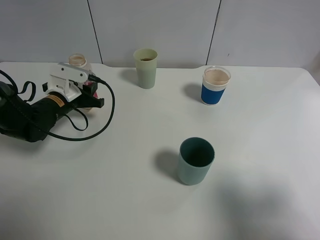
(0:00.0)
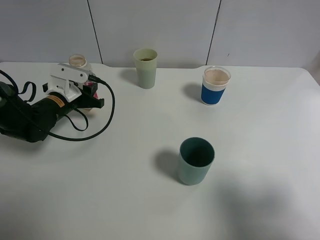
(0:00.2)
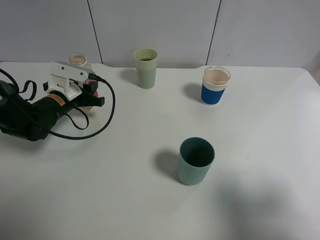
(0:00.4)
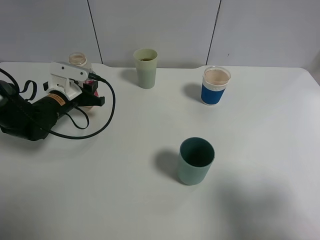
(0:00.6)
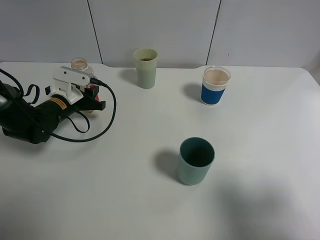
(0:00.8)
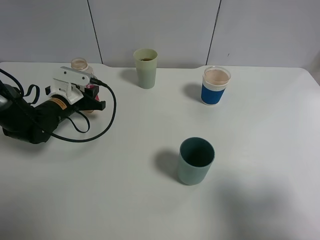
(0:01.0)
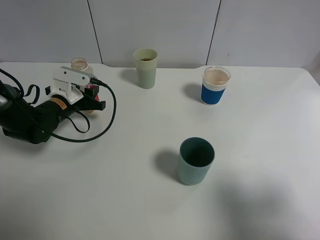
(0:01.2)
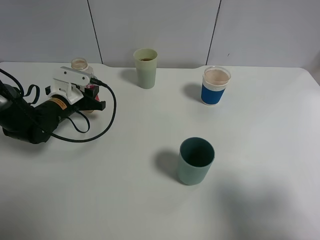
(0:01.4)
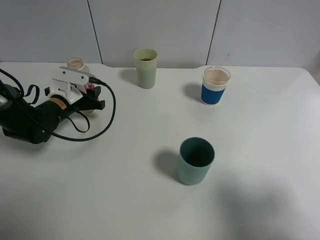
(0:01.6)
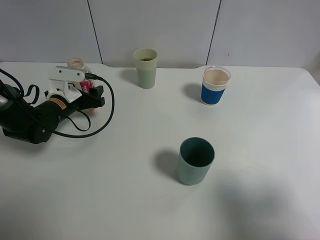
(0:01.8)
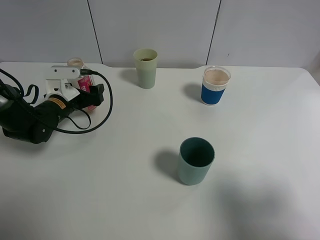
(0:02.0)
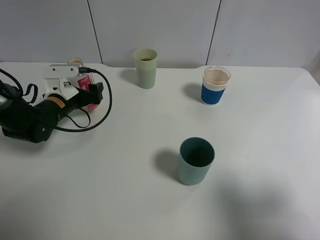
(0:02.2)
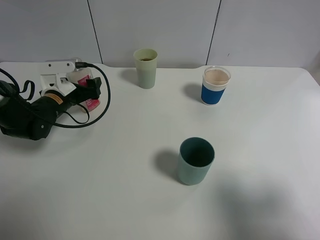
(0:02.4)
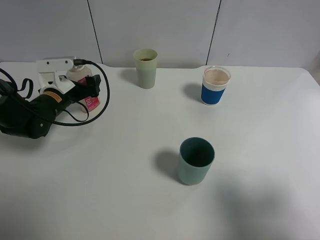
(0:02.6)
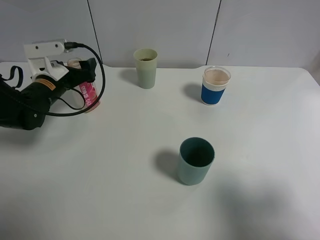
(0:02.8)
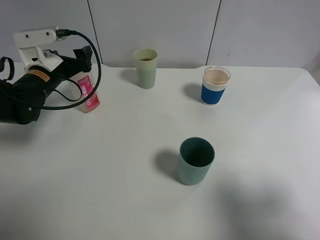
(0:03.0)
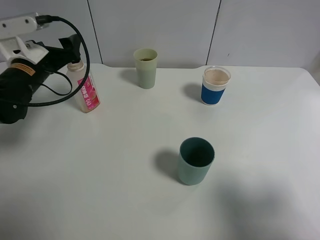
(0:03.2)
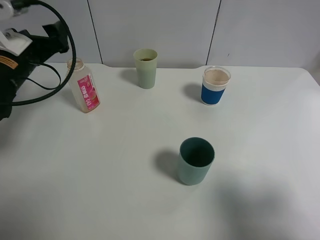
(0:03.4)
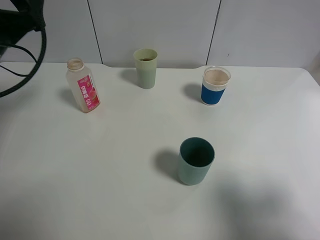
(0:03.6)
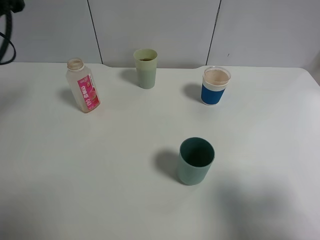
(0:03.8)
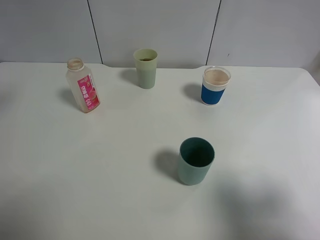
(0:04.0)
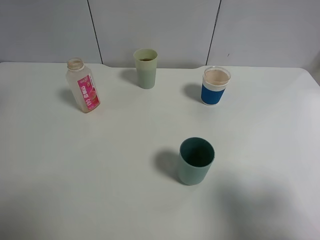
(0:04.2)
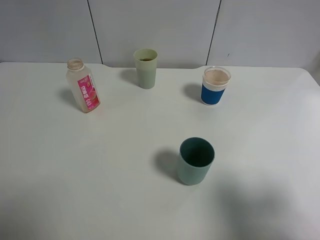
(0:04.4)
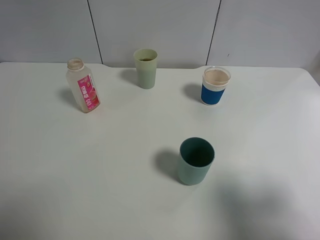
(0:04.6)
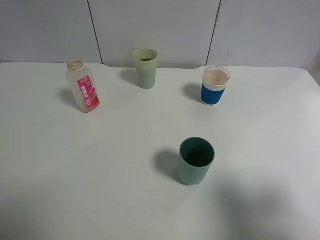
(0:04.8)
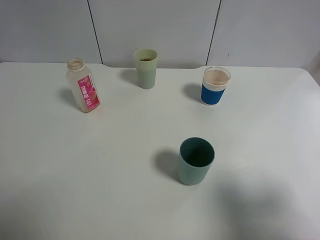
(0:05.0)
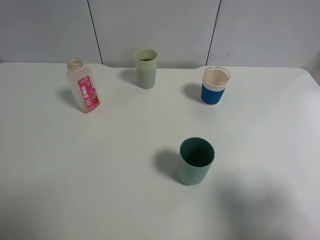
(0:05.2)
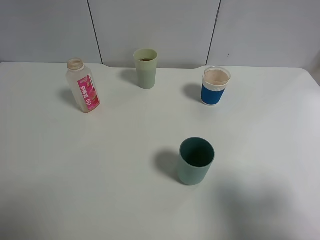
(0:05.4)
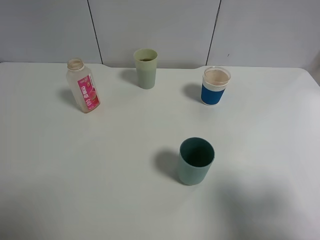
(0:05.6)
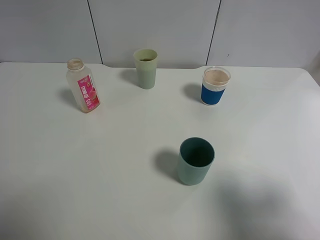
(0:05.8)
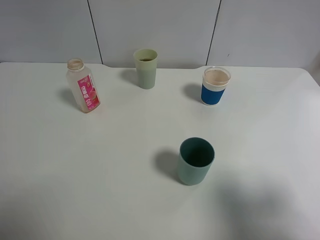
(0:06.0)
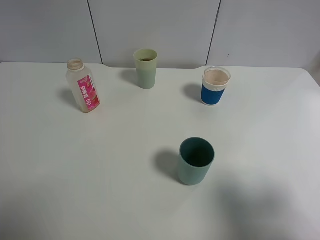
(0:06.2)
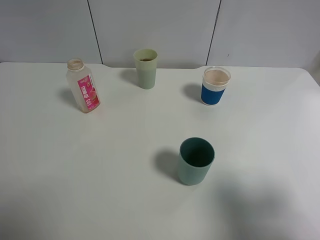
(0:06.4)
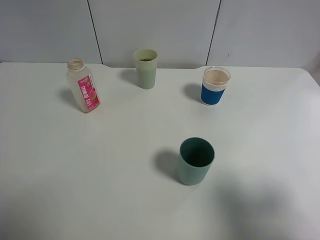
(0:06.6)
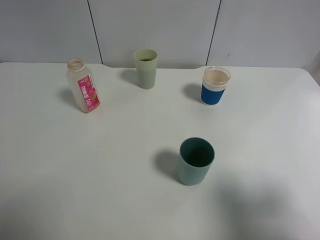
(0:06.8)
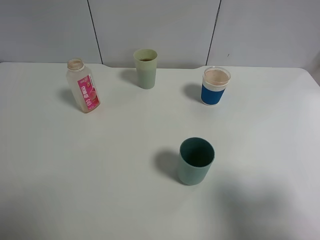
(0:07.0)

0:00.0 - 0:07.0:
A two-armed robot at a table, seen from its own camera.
Task of the whole recording: use a gripper to hold the bottle of the drink and pour it into a random cup.
Step, 0:00.0 - 0:03.0: Place the cranberry juice bottle on the table with the left gripper.
0:00.0 - 0:01.4: Neither gripper changes place.
0:01.4 - 0:02.8: The left gripper shifts some 5 cm upward, and opens its fingers.
0:02.8 - 0:04.2: The left gripper goes approximately 25 cm upward and backward.

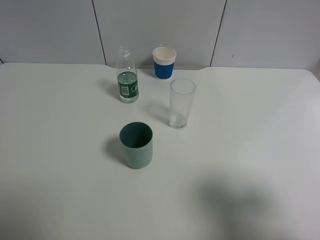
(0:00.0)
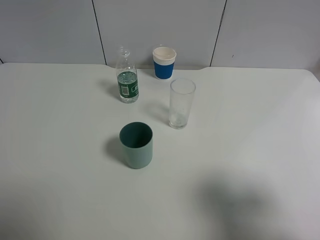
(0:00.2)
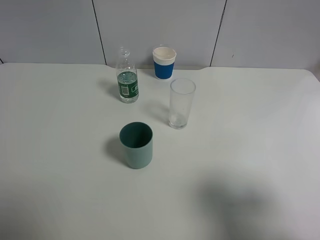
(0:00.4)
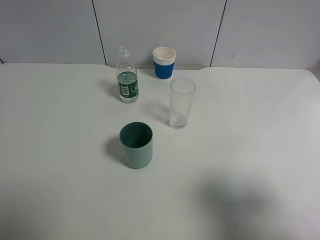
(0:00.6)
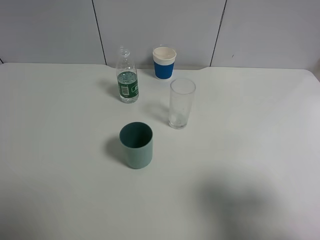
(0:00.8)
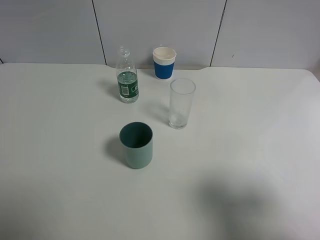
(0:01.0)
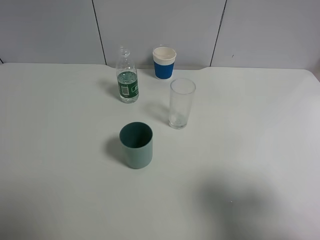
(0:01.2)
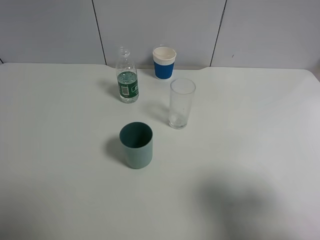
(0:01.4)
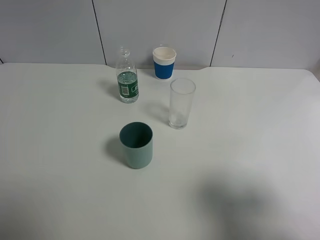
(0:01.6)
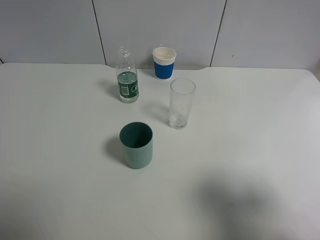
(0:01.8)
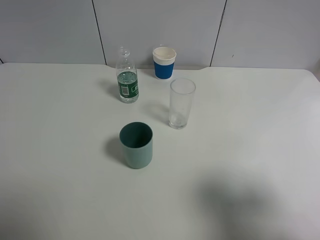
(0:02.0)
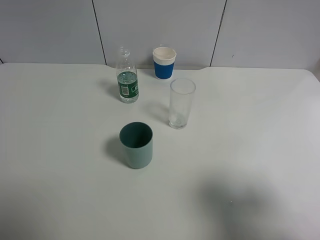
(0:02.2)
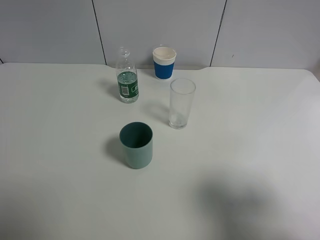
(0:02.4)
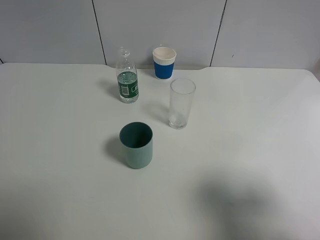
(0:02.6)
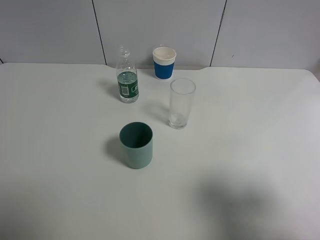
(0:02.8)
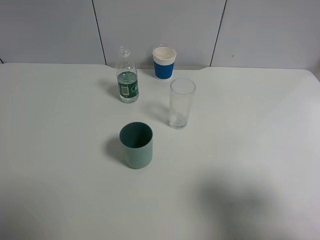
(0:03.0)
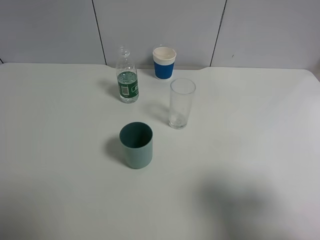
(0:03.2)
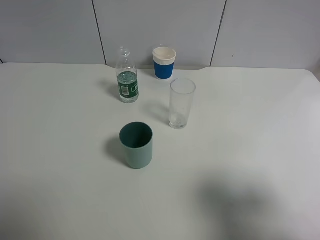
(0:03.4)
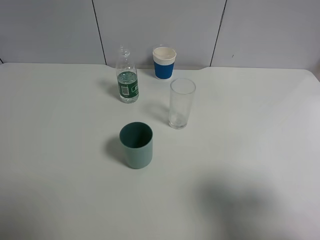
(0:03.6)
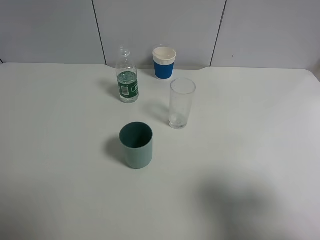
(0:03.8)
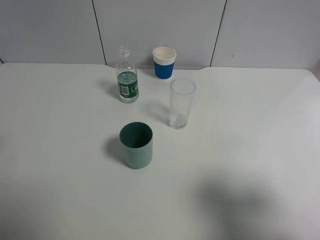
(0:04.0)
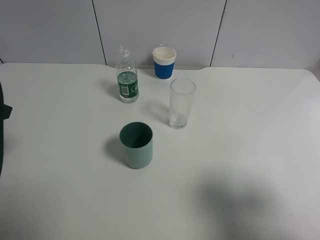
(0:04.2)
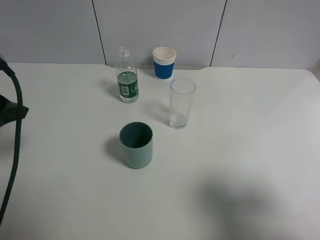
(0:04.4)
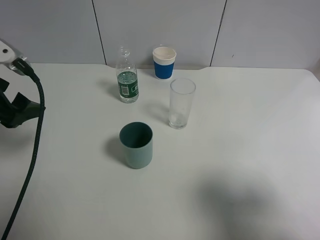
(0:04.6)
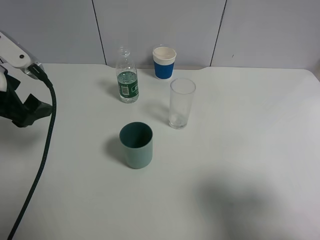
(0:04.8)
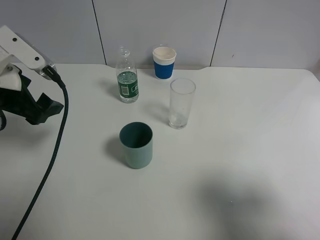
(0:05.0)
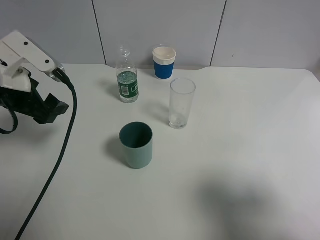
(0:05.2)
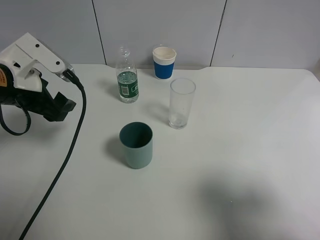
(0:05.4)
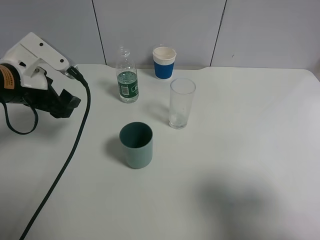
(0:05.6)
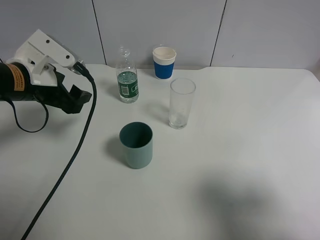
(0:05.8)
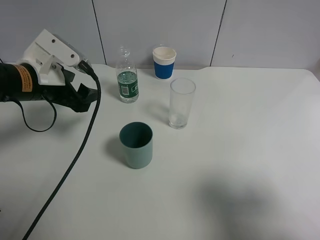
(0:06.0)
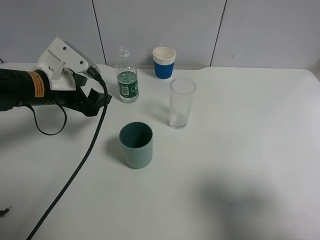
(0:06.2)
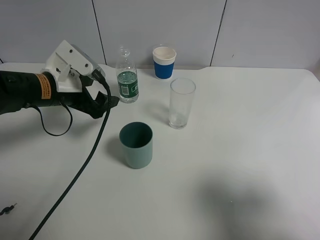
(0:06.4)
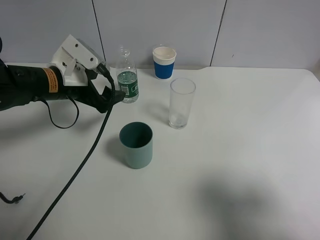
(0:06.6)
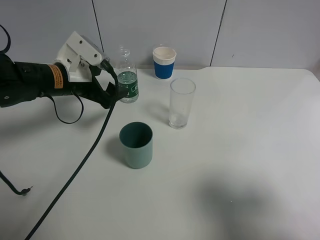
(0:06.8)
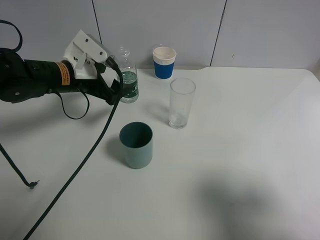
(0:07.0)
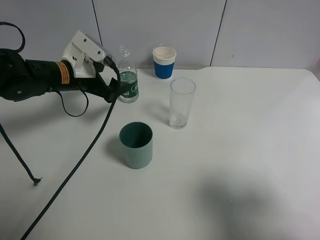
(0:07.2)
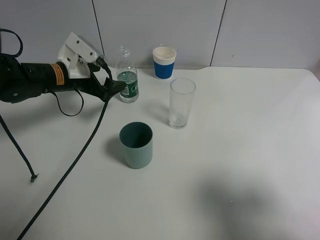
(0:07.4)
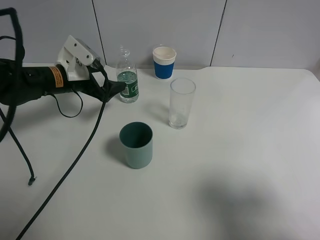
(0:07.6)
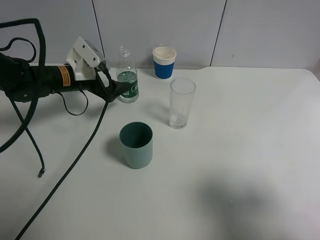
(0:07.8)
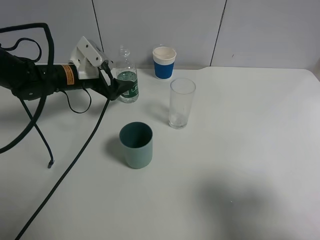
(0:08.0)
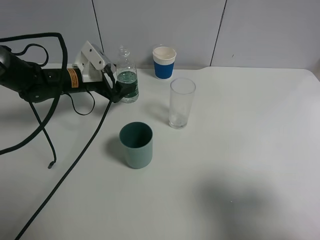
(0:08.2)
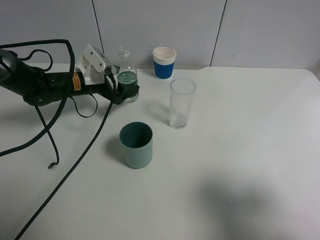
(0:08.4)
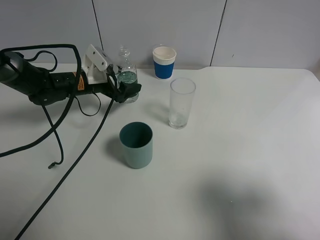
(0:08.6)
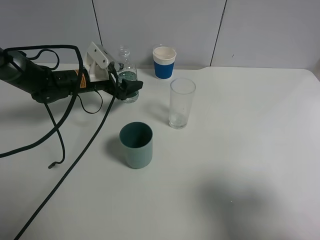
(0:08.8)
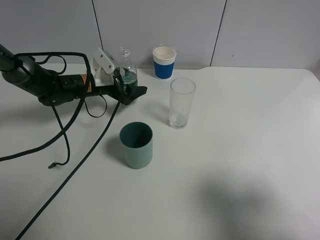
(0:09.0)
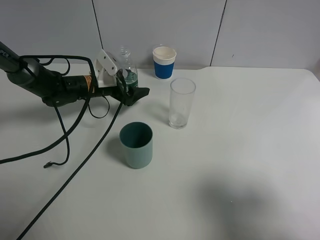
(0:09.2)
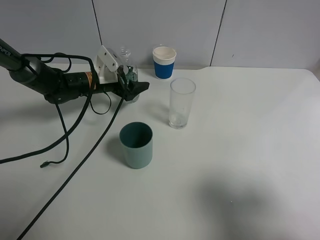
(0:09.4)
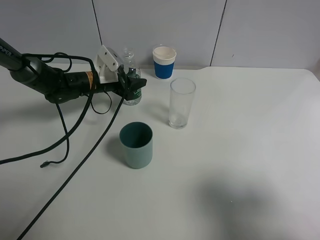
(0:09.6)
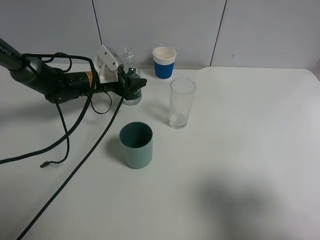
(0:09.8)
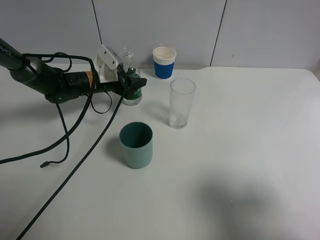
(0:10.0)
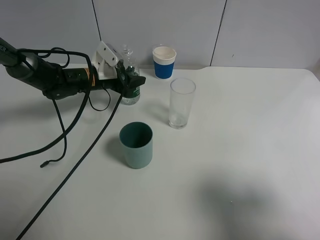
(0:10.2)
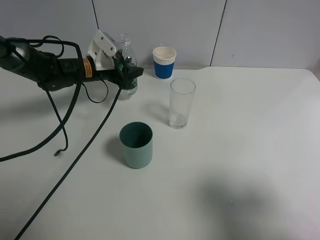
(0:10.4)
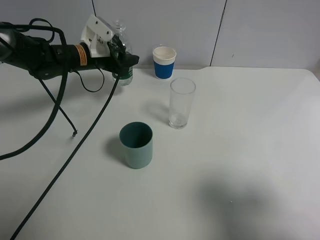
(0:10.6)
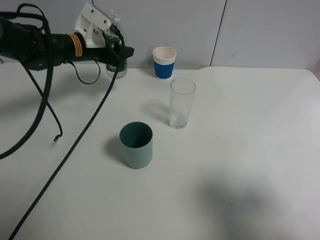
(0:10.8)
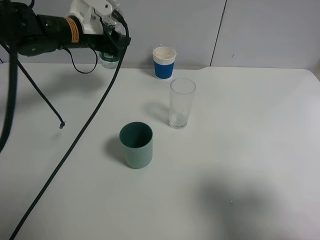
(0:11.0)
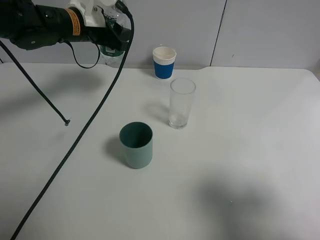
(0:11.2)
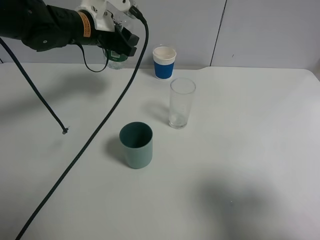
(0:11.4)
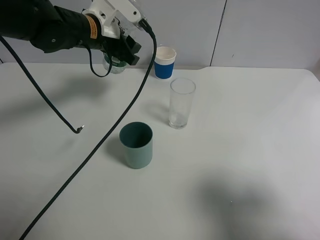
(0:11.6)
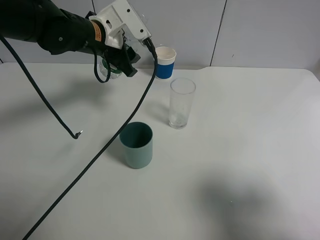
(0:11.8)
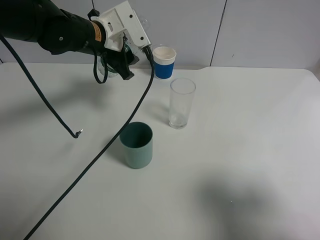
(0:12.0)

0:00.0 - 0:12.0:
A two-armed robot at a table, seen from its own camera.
Task of the whole recording: use a gripper to hold the bottle of the drink and pour it into a random cup.
Step, 0:00.0 - 0:09.8: Grasp the mineral water bottle with the left gripper.
0:00.0 - 0:01.6: The two grippers keep their place.
0:03.0 - 0:04.4: The left gripper travels forward by roughly 15 cm.
0:04.4 - 0:06.0: The left gripper shifts some 15 cm forward, to the right and downward.
0:06.0 - 0:07.6: The left gripper is displaced forward and downward by some 10 cm, and opens up.
0:07.6 - 0:09.0: The left gripper moves downward and forward, roughly 10 cm.
0:09.0 - 0:10.4: The left gripper closes up.
0:10.4 - 0:12.0: The left gripper is displaced upward by about 10 cm.

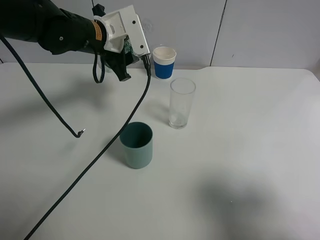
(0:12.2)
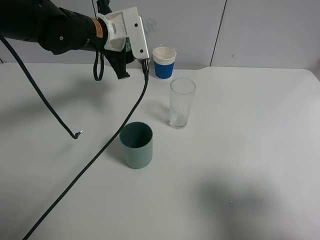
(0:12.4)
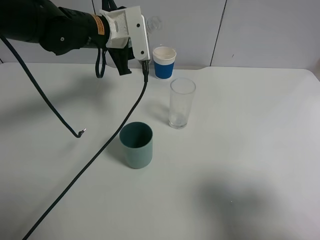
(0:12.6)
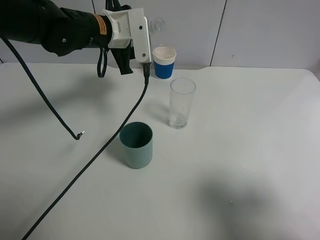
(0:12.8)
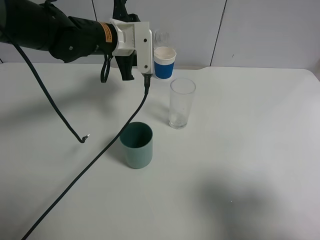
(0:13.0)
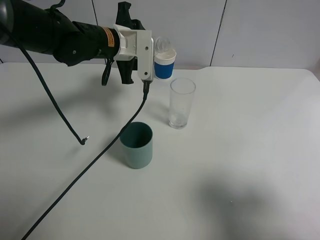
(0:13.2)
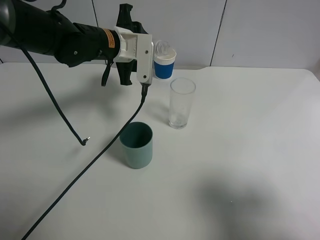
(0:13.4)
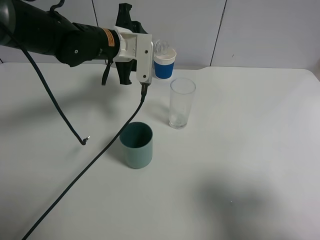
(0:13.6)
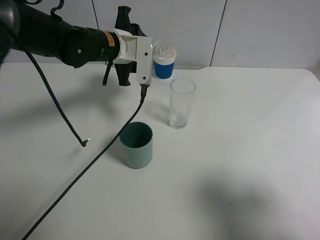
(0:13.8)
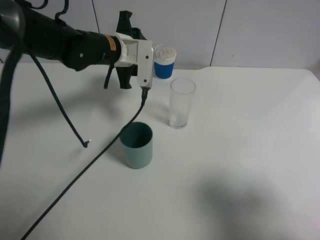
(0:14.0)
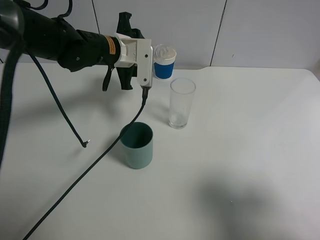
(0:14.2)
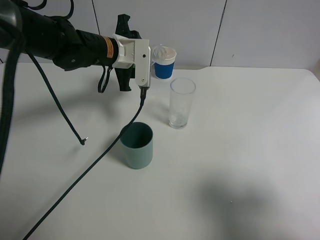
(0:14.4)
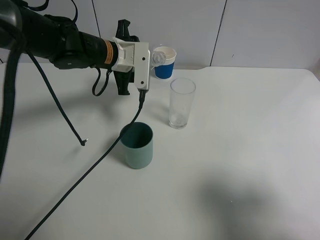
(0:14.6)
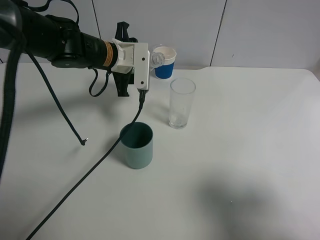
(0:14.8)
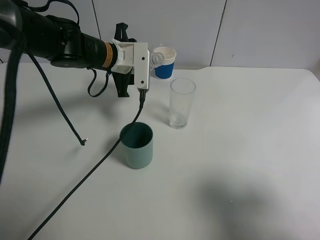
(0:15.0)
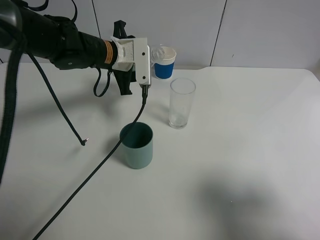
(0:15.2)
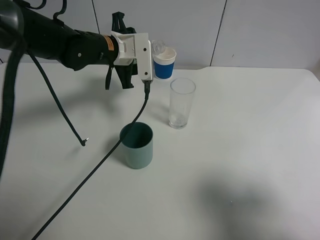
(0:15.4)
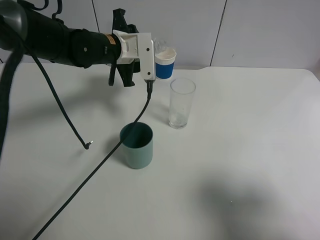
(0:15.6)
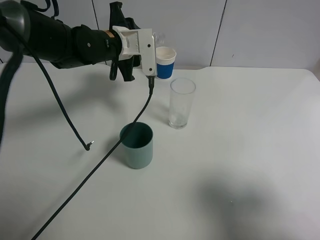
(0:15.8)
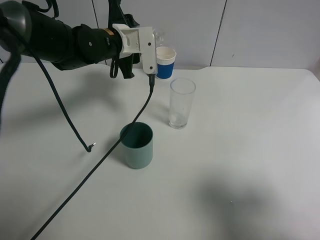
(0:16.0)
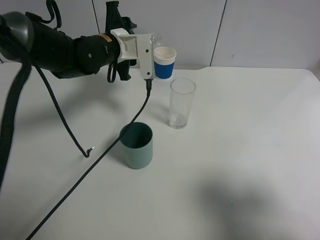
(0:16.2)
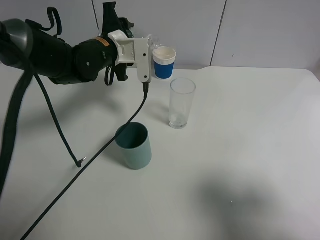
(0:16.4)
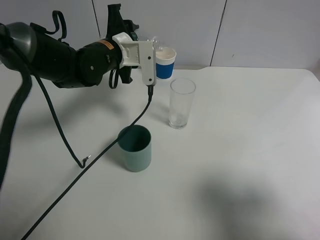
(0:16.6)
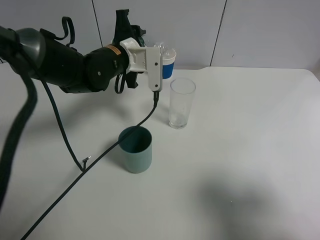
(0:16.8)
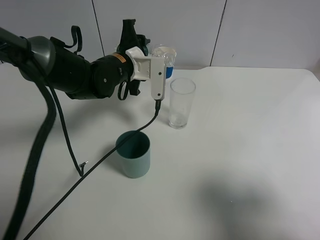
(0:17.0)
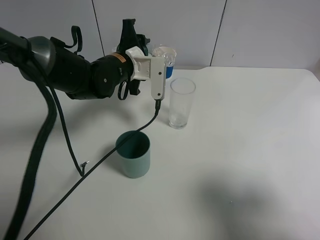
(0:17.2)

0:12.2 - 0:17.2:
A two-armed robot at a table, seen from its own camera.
Task of the whole recording: use a gripper to hold the bottle of the drink and pour it into a random cup.
0:13.8 - 0:15.6: The grippers move only a little.
